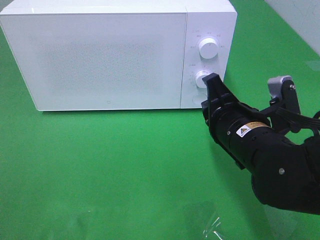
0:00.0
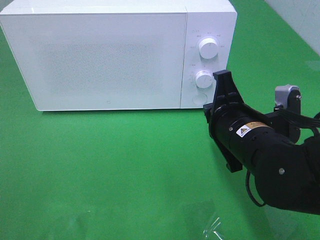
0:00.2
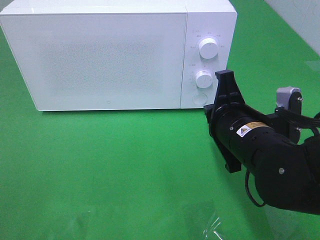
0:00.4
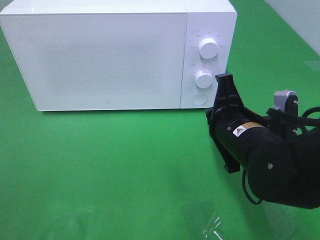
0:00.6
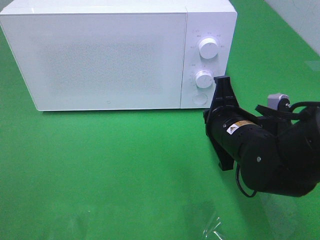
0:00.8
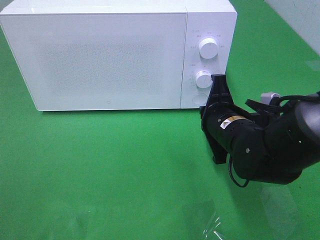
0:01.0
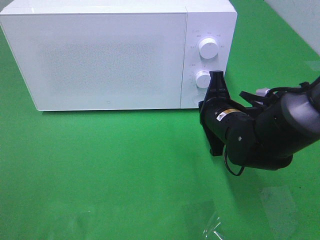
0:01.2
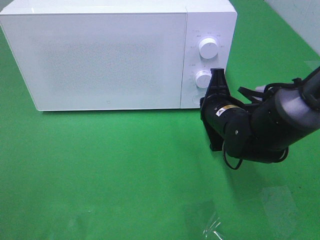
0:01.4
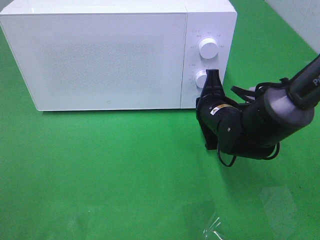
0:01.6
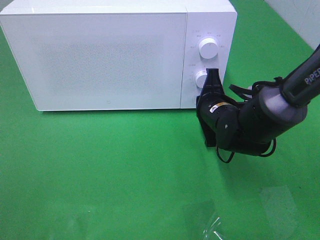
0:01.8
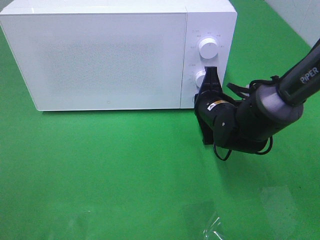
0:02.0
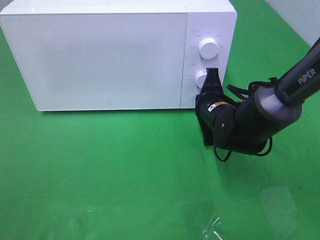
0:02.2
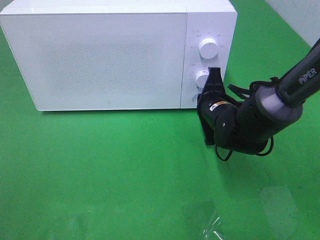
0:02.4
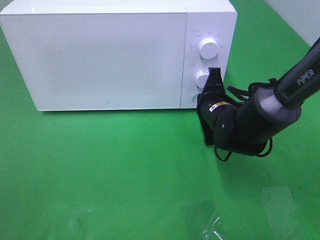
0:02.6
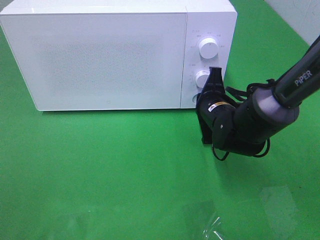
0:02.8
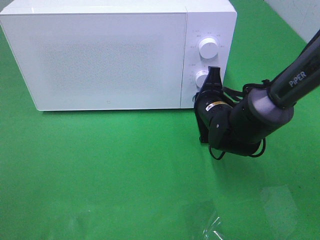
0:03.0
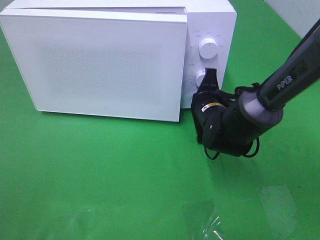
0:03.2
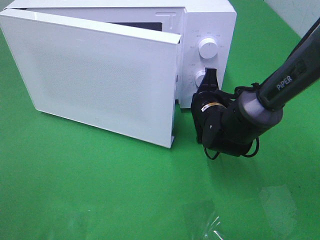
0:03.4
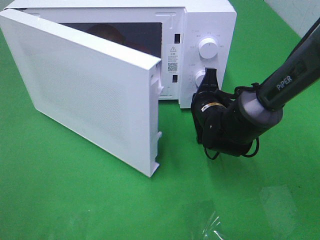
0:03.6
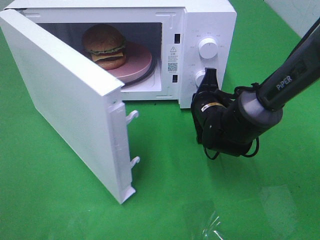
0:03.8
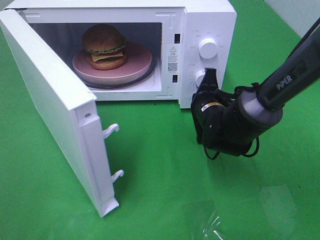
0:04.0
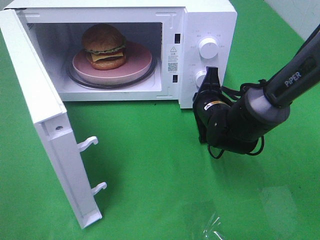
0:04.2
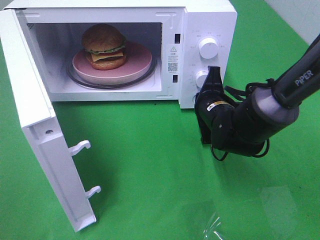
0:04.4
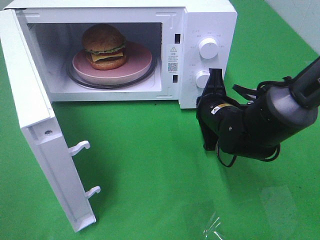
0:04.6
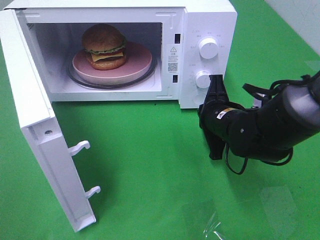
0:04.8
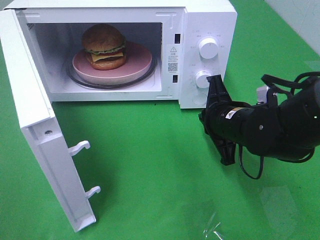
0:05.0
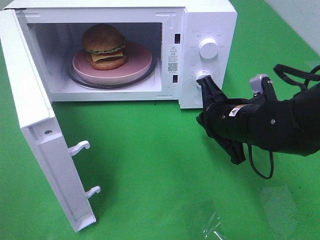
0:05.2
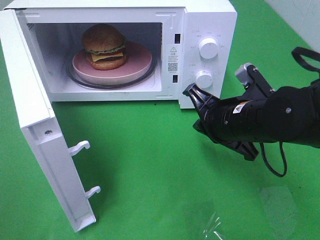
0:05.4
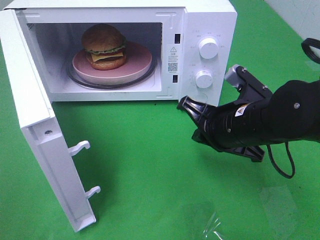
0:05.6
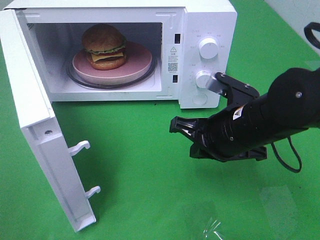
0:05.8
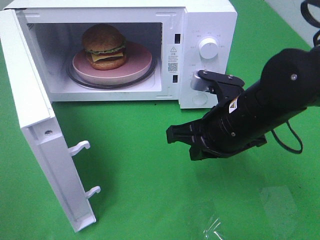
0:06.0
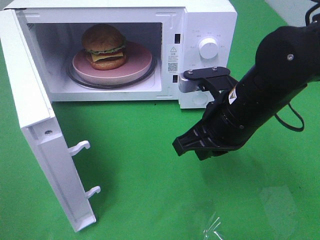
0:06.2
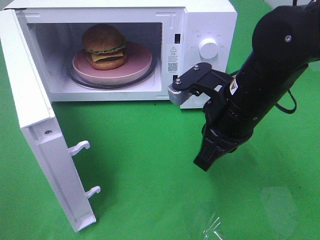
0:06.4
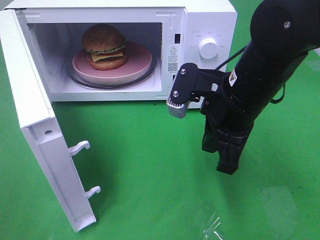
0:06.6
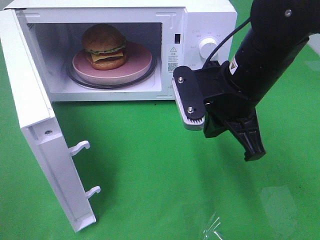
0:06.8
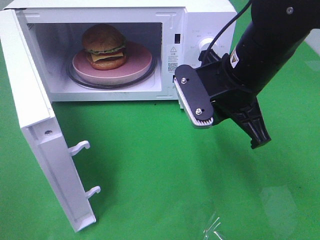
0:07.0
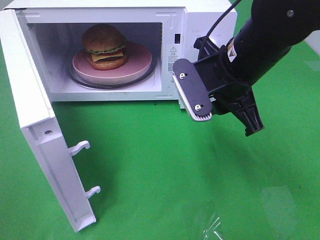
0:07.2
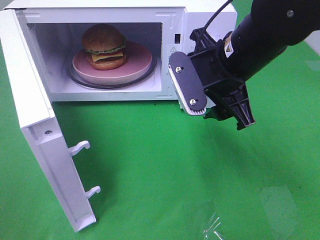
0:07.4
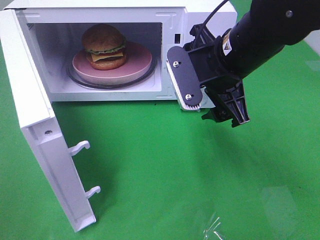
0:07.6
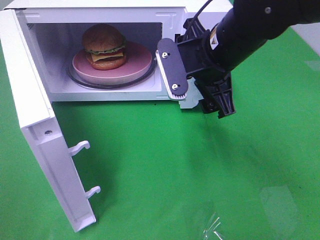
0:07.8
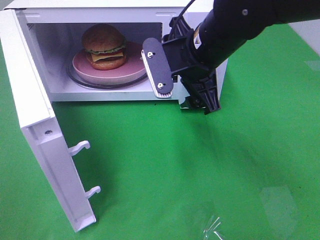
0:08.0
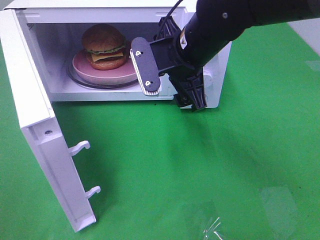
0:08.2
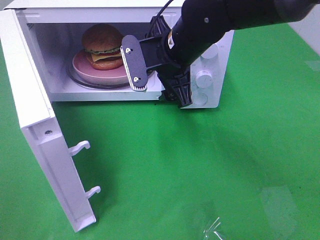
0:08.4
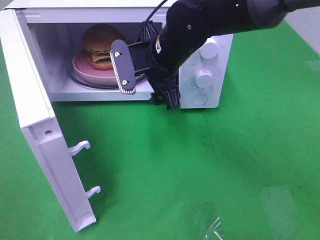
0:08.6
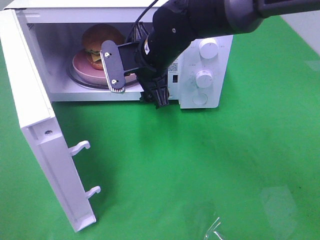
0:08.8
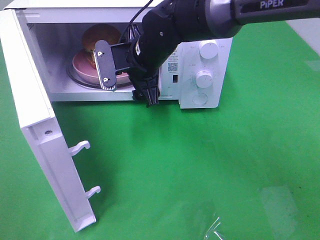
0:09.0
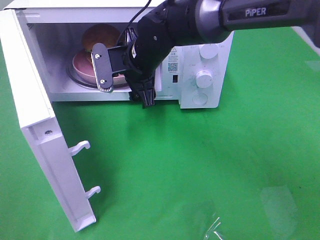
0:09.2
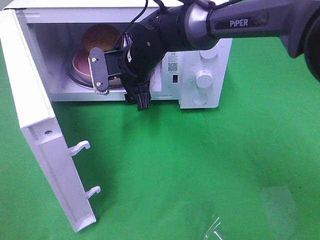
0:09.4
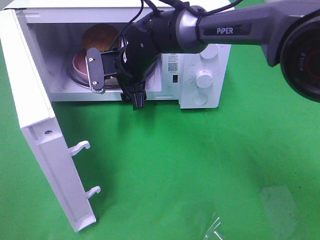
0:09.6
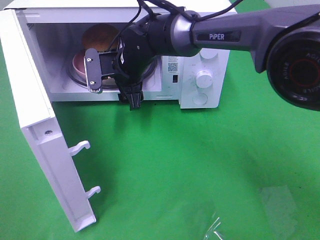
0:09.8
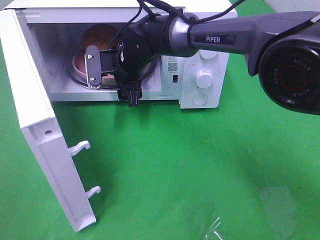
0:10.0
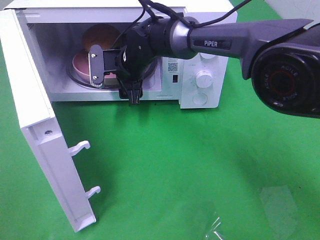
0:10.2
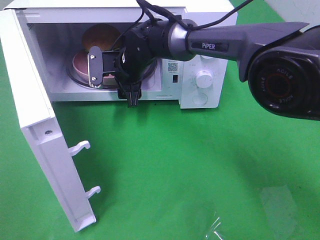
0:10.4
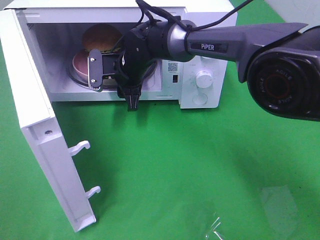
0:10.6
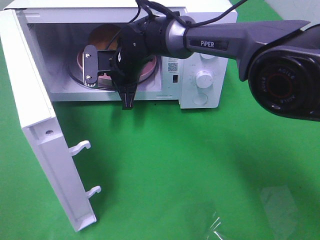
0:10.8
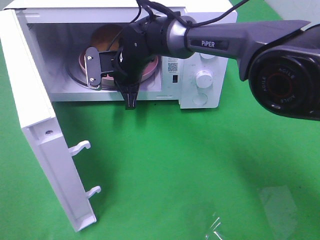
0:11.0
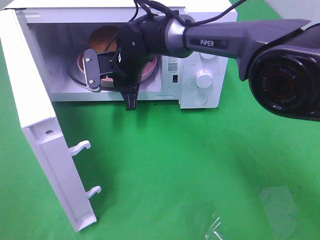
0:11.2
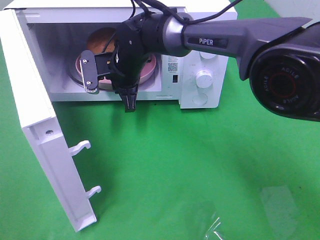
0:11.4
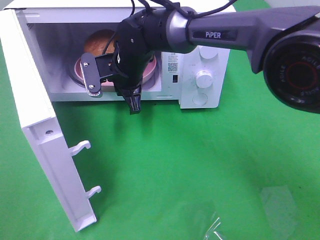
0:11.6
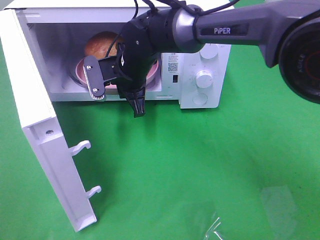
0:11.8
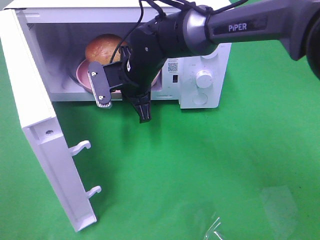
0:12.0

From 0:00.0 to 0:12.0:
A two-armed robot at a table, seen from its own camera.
Task of the whole recording: Heat the burger.
Step, from 0:00.0 to 0:05.2: Right hand: press the switch.
Step, from 0:05.4 to 0:10.6: Right hand: grab the plate with the hamburger.
From 0:00.0 to 0:01.6: The right gripper travels forward and downward by approximately 10 cm.
From 0:01.6 to 0:03.0: The grippers move only a little.
From 0:04.4 to 0:06.0: The right gripper heads backward and upward, covering about 10 cm.
From 0:06.0 to 0:07.6: The right gripper heads upward, covering approximately 5 cm, and opens its fingers.
From 0:07.6 to 0:09.0: The right gripper heads to the left, forward and downward, covering roughly 15 cm.
From 0:09.0 to 0:10.4: The right gripper shifts about 10 cm forward and downward.
From 0:10.4 to 0:12.0: The right gripper shifts approximately 5 cm backward, and closes up.

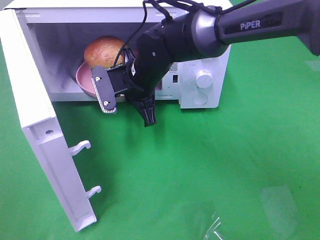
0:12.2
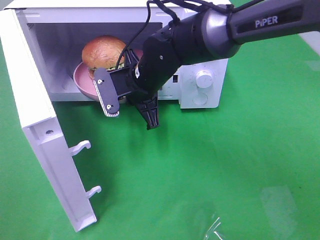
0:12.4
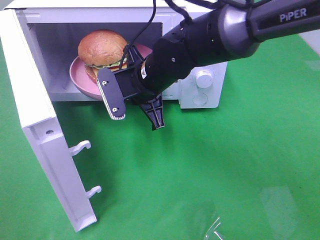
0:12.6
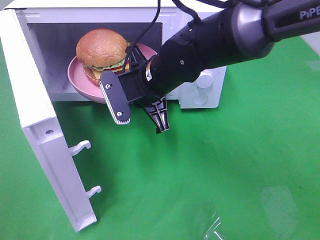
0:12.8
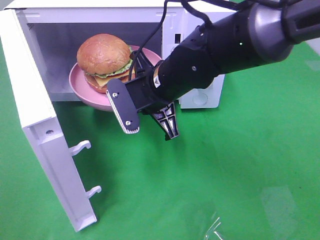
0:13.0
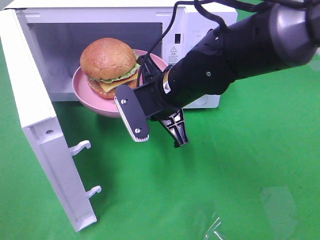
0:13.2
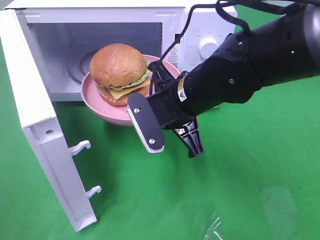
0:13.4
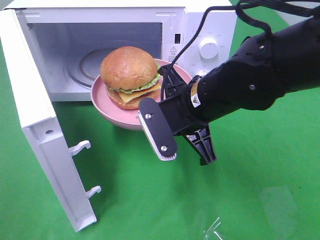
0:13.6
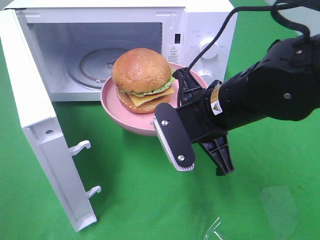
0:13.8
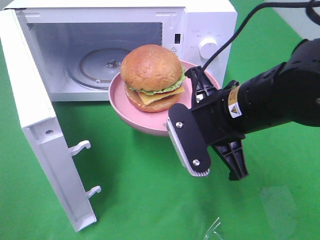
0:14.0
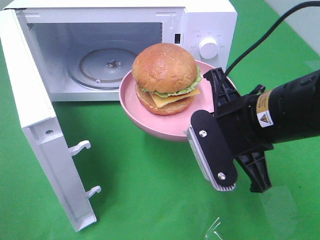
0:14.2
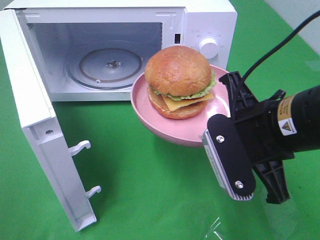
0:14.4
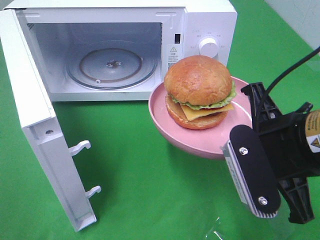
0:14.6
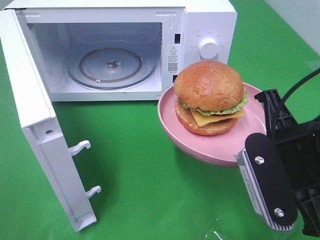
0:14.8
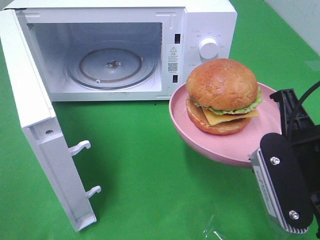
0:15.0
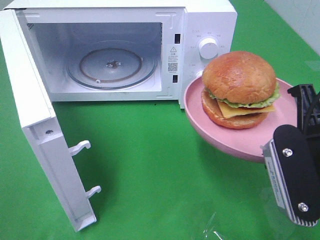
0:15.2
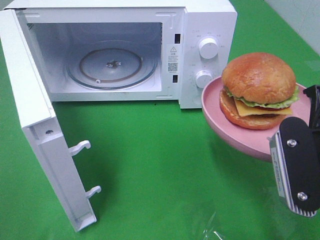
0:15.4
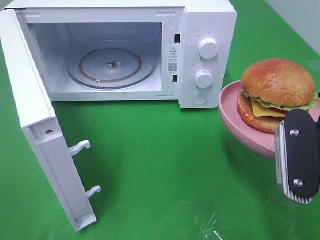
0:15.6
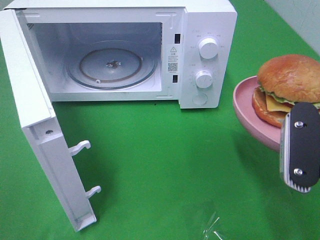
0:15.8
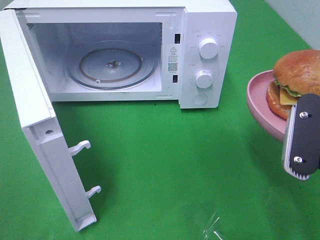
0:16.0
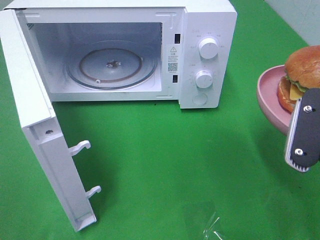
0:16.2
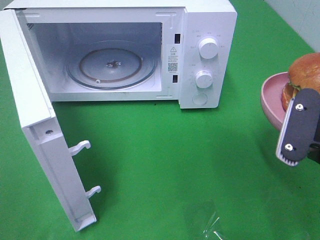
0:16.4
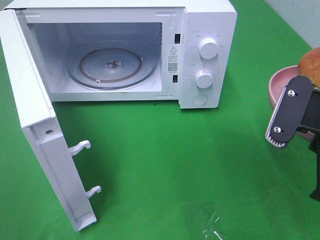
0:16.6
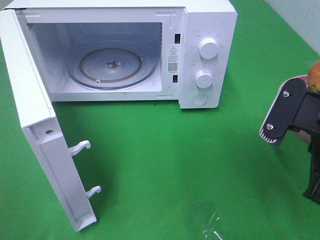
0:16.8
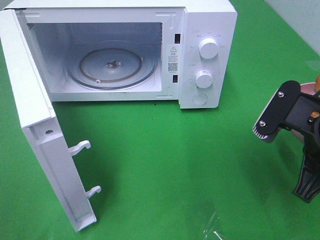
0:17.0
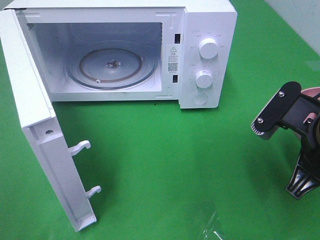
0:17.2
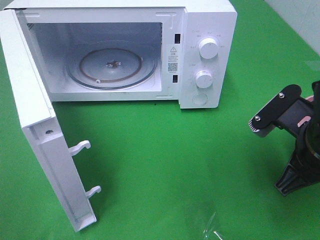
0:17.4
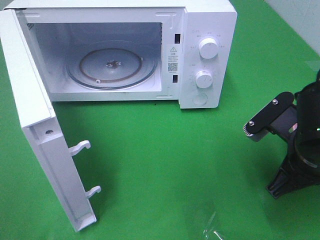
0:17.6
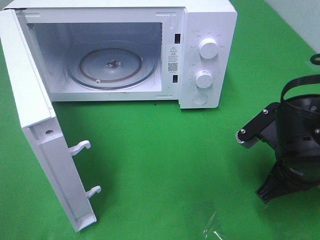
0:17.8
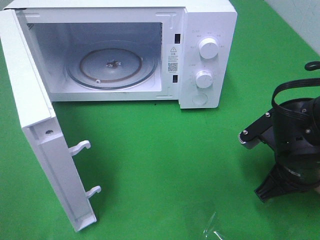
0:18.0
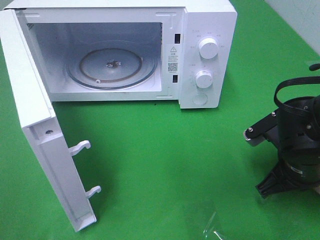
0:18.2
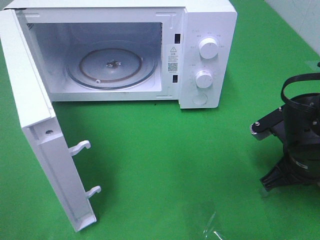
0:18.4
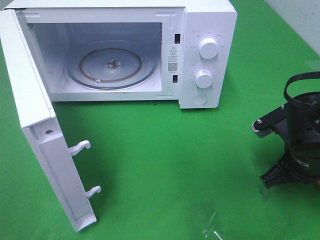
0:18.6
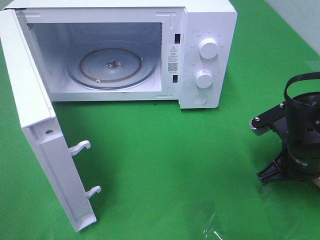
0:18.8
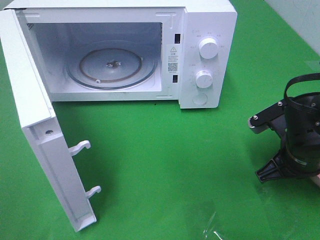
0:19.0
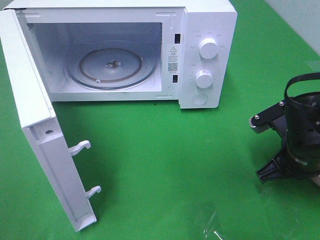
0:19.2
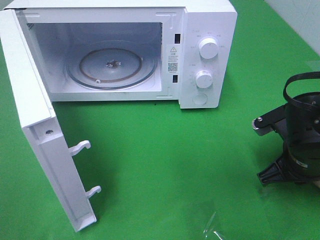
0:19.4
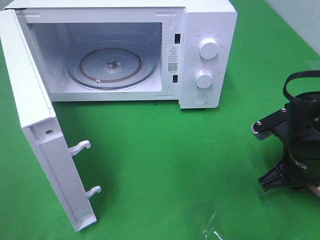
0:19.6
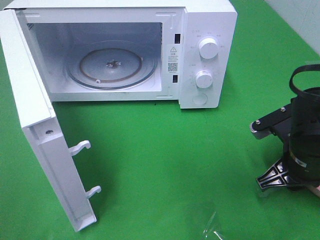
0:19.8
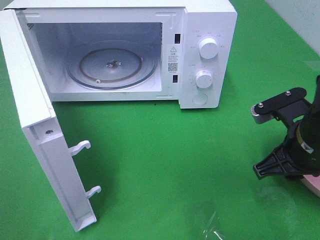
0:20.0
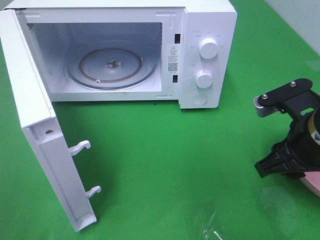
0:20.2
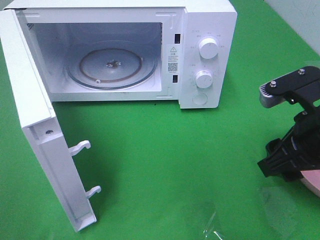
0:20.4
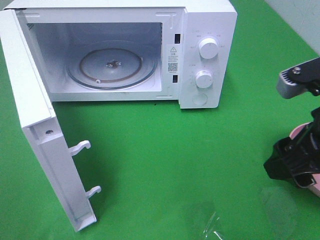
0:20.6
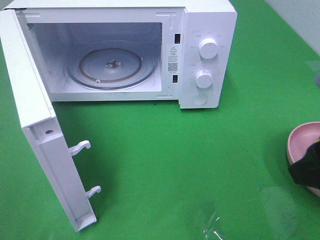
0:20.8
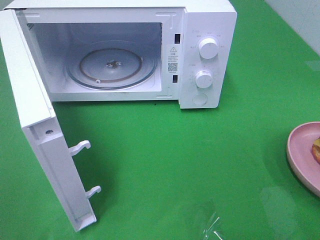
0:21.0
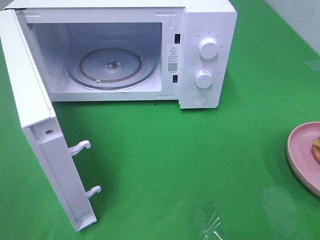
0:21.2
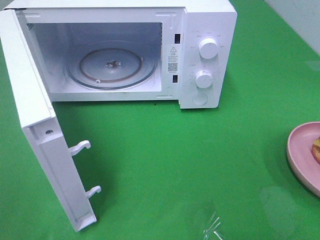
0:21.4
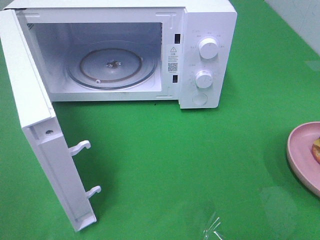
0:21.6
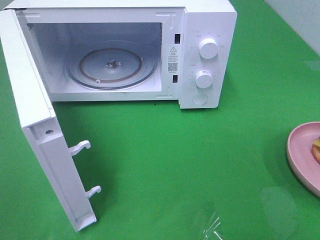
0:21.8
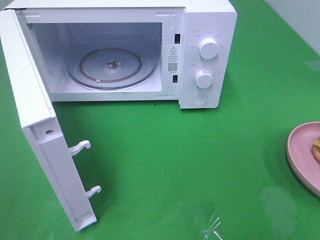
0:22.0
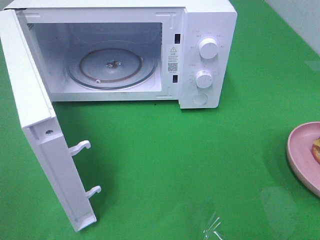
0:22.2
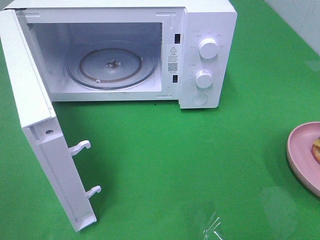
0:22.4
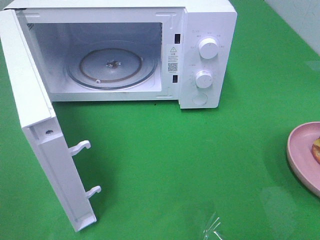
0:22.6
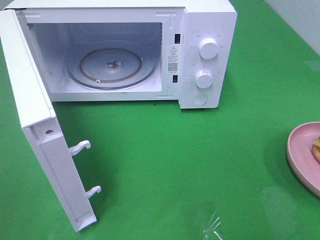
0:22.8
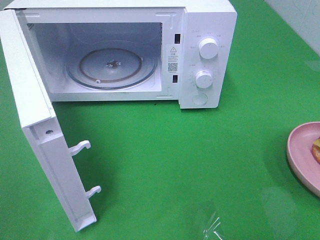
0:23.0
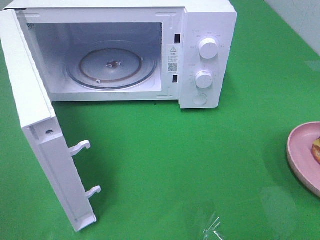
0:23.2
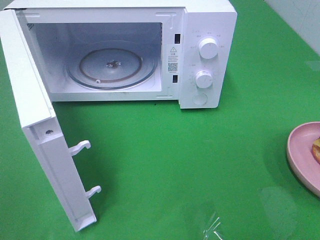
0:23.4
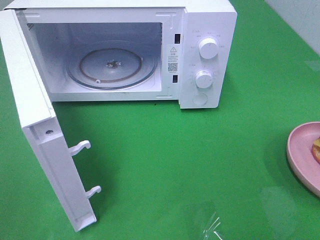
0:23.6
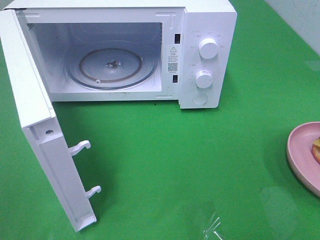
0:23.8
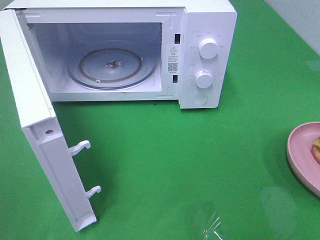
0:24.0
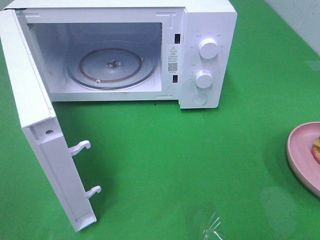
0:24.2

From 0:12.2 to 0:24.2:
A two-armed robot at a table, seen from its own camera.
Task of the whole recording: Heat the burger.
Step, from 0:12.2 to 0:20.4: Right hand: place the plate on the table.
From 0:12.2 to 0:13.8: The right gripper heads backward and to the right, covering about 15 cm.
From 0:13.8 to 0:15.2: The right gripper heads to the right and backward, covering some 15 cm.
From 0:16.6 to 0:18.2: The right gripper travels downward and forward by about 10 cm.
From 0:18.2 to 0:19.8: The right gripper opens its fingers.
From 0:19.8 to 0:21.2: The right gripper heads upward and backward, covering approximately 20 cm, and opens.
From 0:22.6 to 0:24.2: Both grippers stay about where they are.
